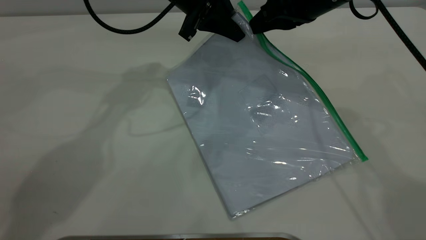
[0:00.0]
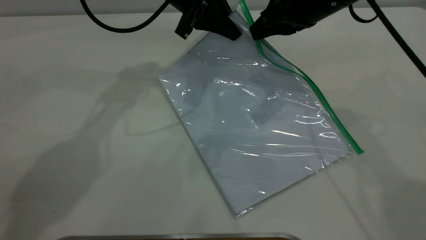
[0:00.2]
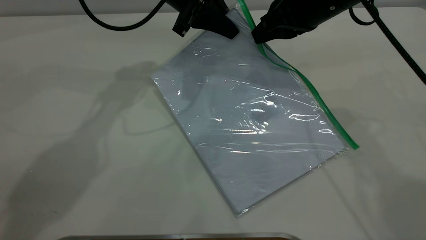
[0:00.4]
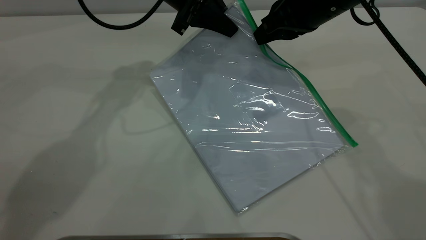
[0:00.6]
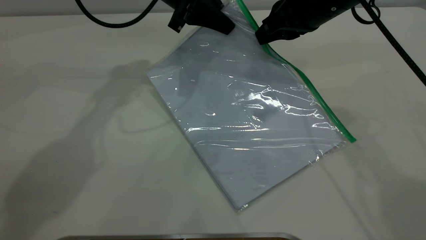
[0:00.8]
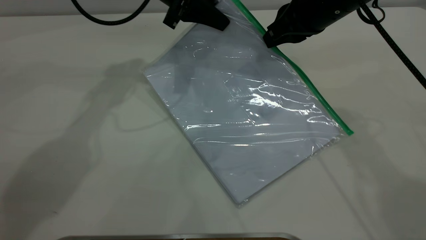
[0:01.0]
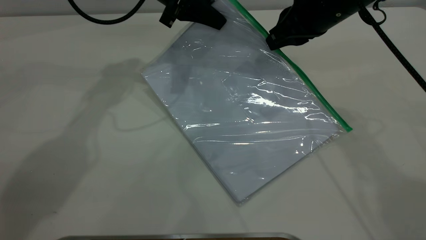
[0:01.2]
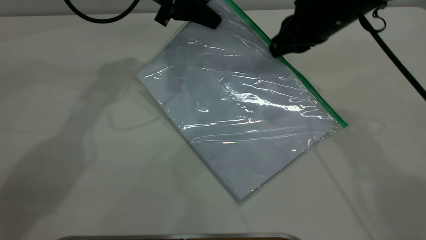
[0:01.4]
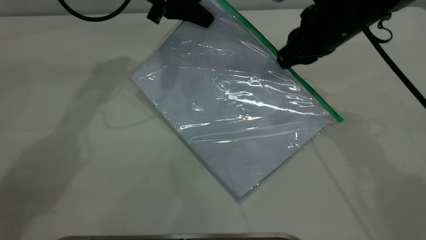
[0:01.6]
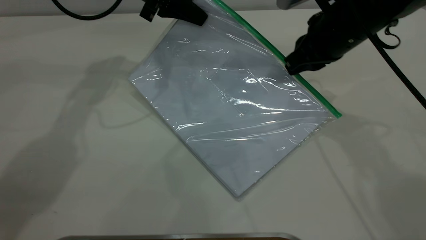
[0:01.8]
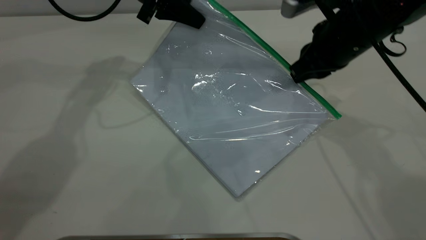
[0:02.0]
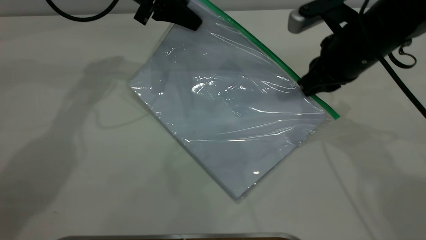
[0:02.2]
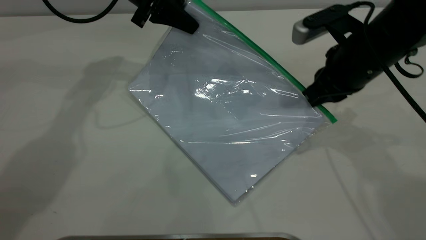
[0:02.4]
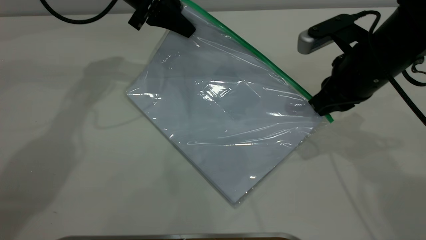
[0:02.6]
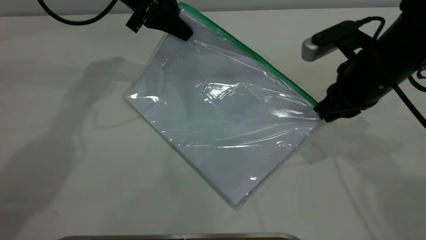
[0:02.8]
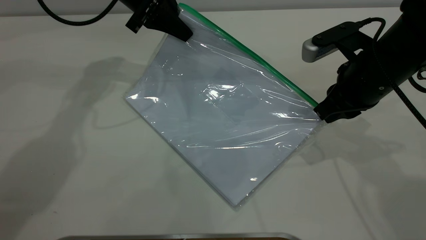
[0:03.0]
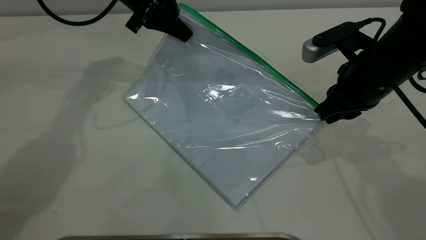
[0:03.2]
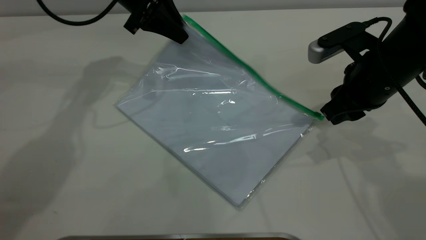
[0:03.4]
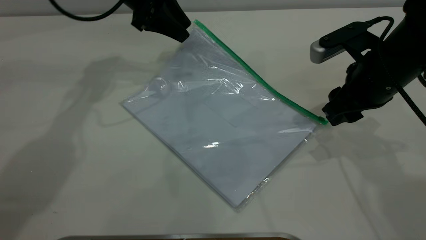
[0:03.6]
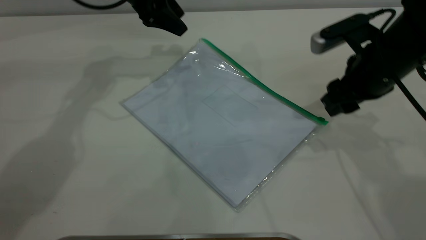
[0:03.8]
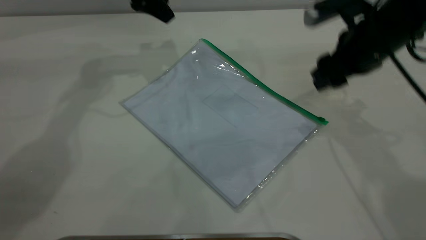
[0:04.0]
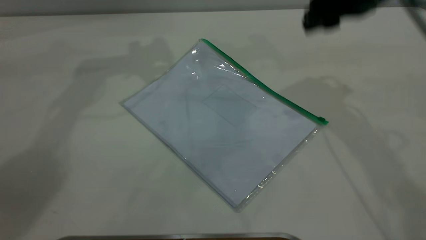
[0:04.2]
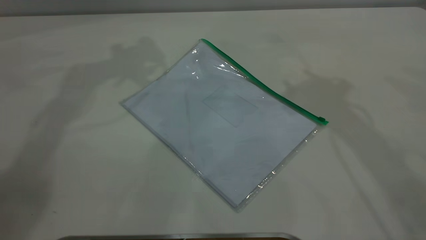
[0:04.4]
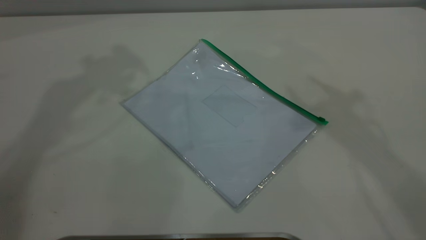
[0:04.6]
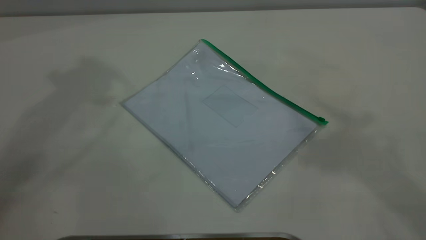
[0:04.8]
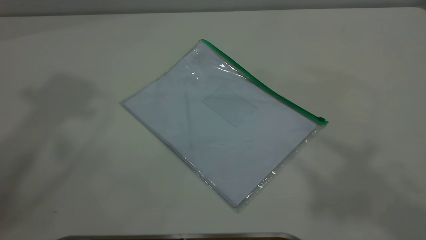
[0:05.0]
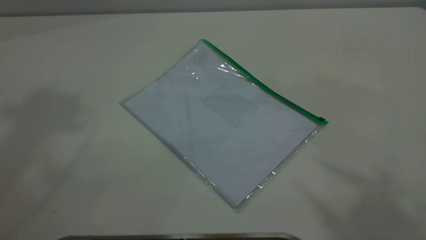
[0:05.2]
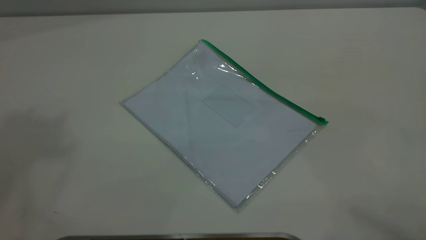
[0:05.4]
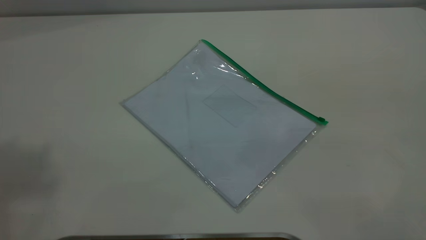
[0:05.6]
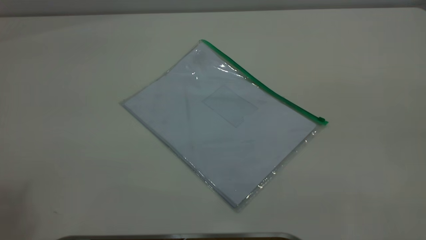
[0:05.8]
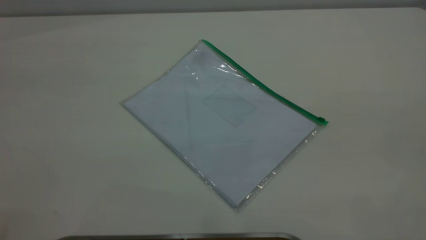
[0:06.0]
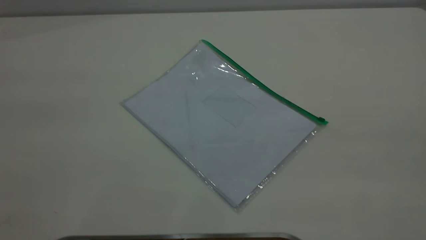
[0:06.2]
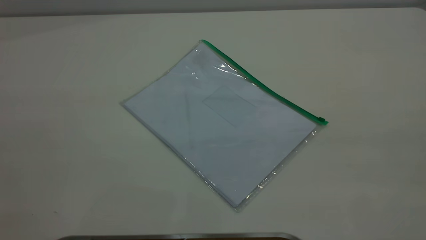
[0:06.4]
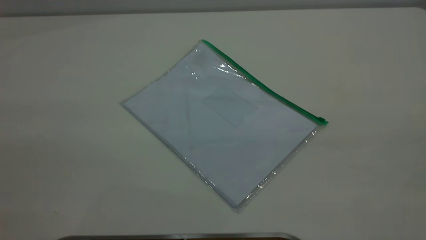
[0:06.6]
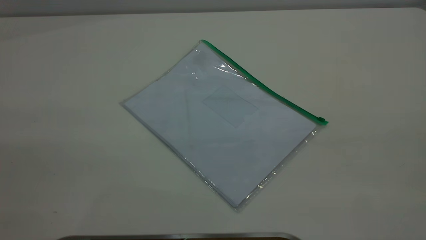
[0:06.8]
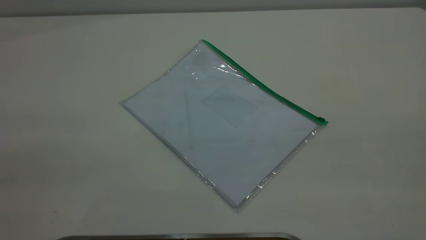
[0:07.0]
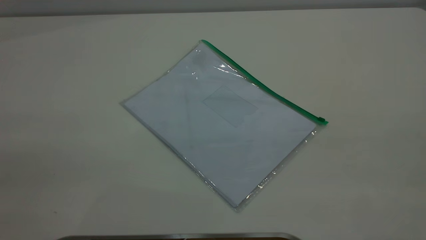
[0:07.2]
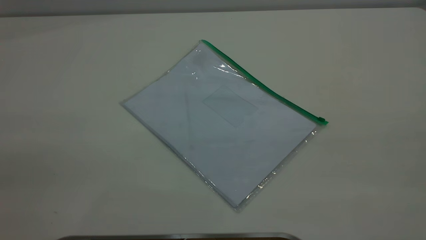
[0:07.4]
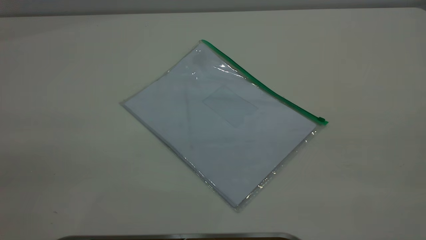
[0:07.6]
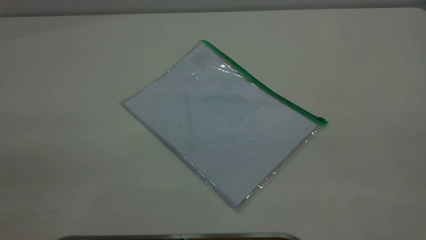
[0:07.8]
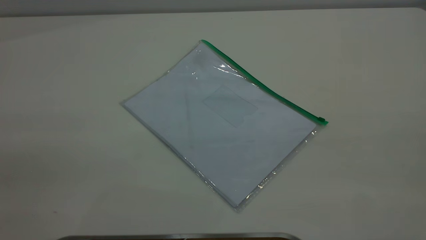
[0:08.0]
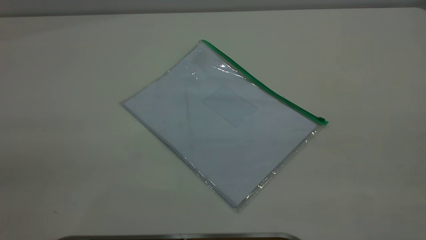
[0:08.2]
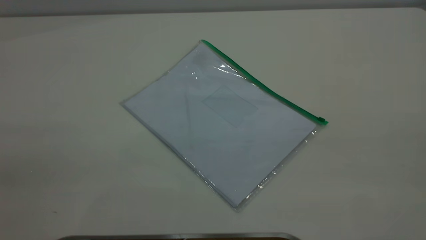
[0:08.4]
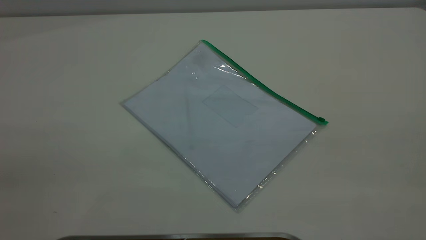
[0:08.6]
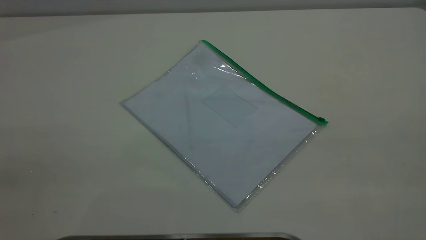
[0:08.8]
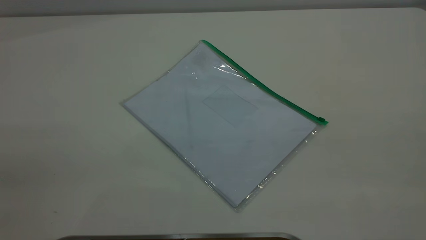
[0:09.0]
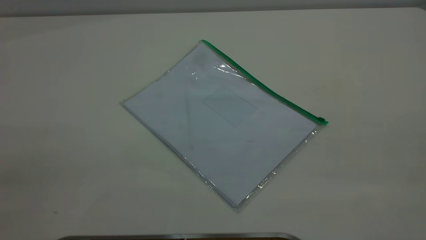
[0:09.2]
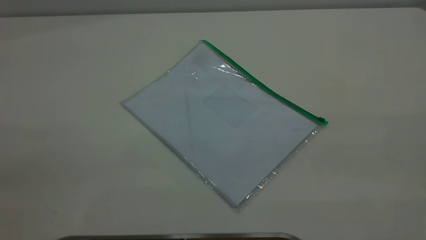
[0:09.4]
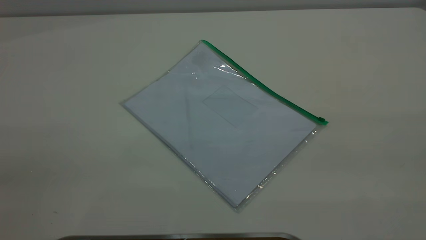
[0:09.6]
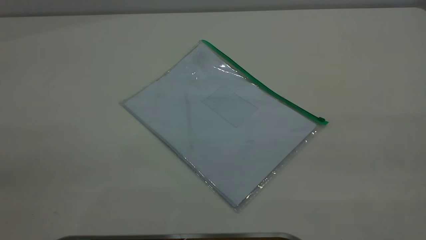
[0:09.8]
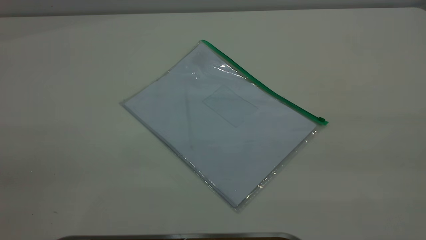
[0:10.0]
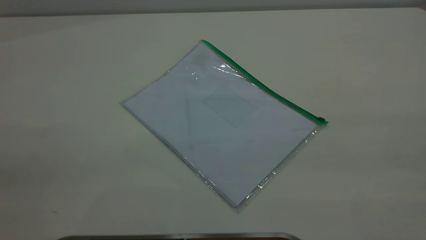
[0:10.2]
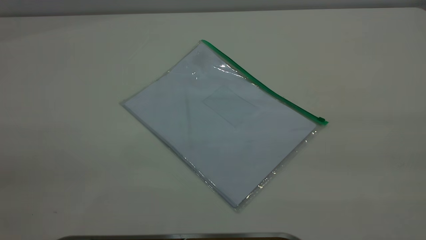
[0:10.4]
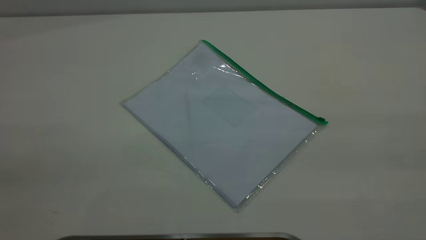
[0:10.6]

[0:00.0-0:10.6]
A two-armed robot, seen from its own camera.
Step, 0.0 to 3.2 s: Pulling up the zipper on the transparent plastic bag with the right gripper to close it.
Step, 3.4 to 3.8 s: Place the transparent plastic bag.
0.0 to 1.6 s: The left gripper shifts some 5 cm to the left.
1.6 to 3.0 s: The right gripper heads backward, covering some 5 cm.
3.0 to 4.6 s: Both grippers travel together upward, roughly 30 cm. The left gripper opens its fingers. The right gripper opens up.

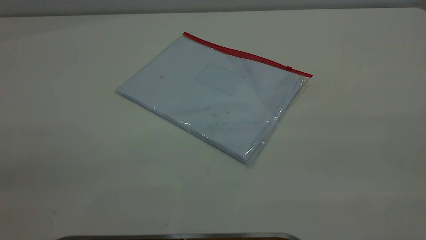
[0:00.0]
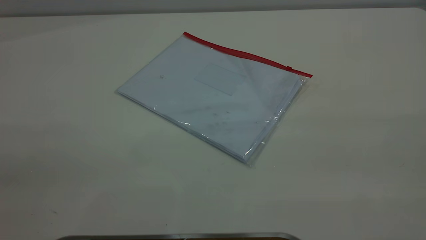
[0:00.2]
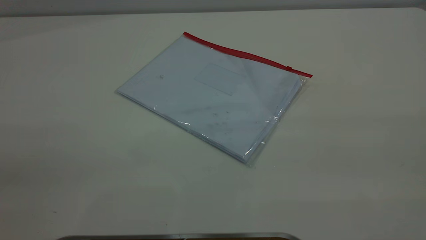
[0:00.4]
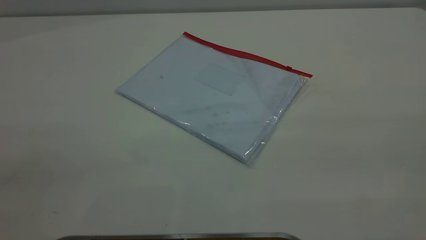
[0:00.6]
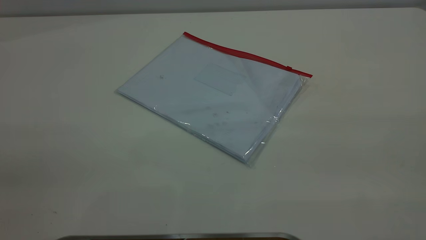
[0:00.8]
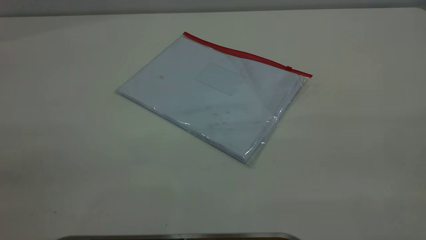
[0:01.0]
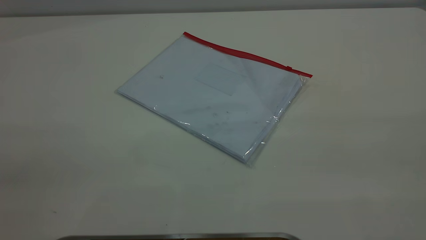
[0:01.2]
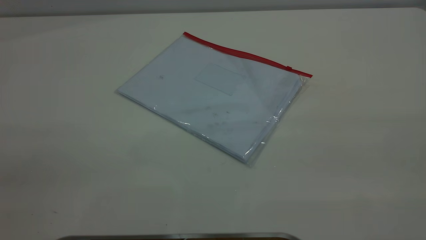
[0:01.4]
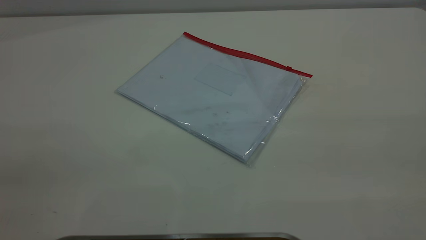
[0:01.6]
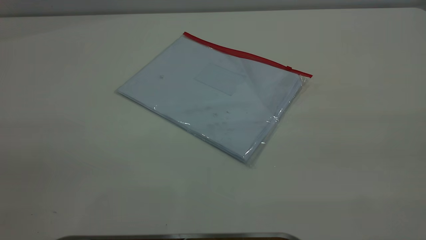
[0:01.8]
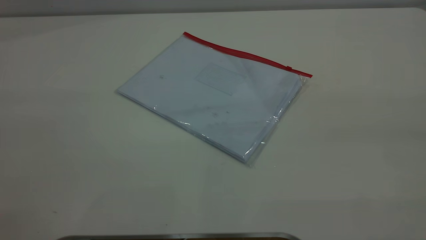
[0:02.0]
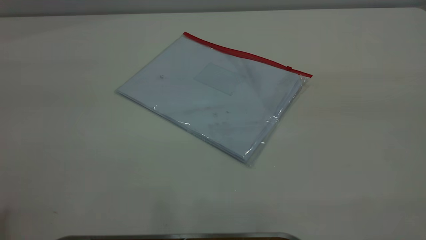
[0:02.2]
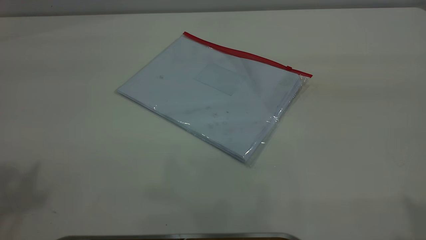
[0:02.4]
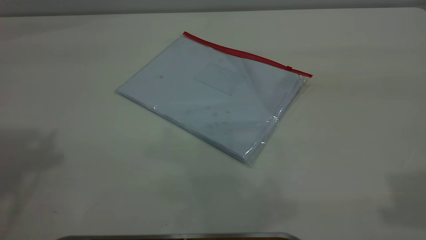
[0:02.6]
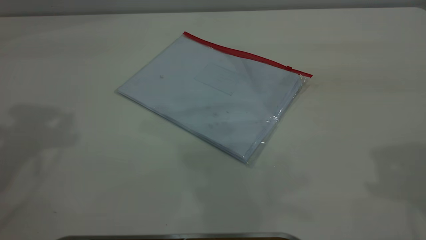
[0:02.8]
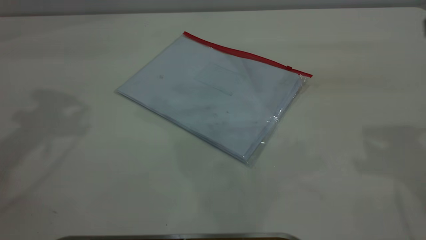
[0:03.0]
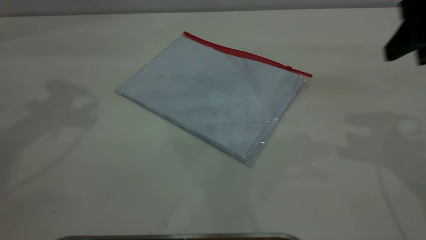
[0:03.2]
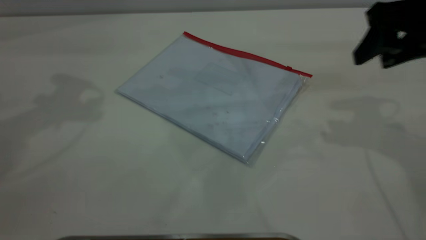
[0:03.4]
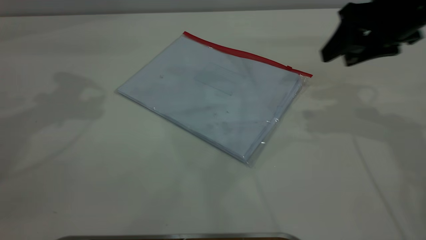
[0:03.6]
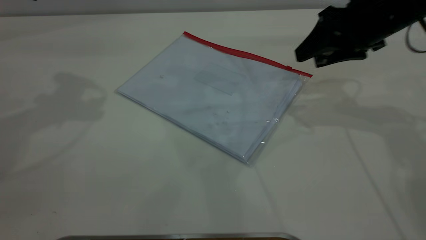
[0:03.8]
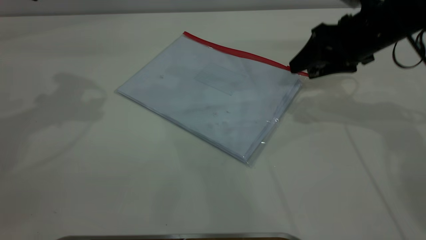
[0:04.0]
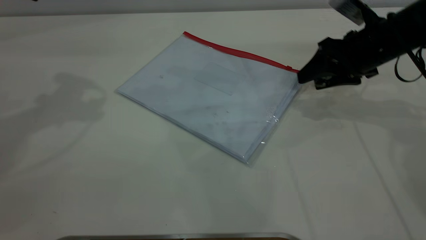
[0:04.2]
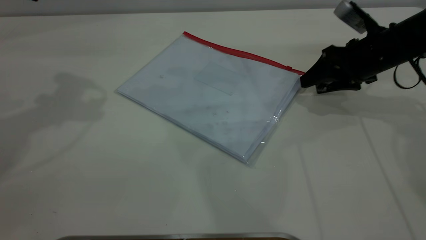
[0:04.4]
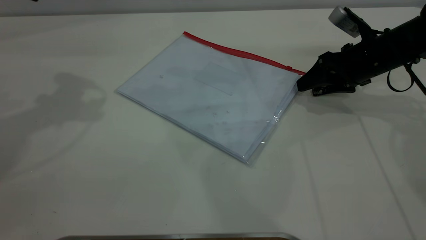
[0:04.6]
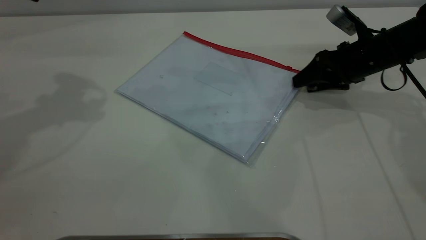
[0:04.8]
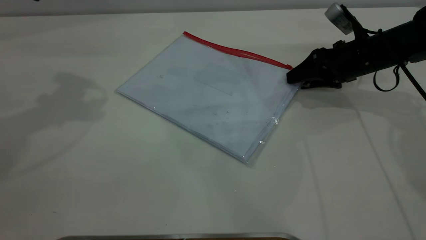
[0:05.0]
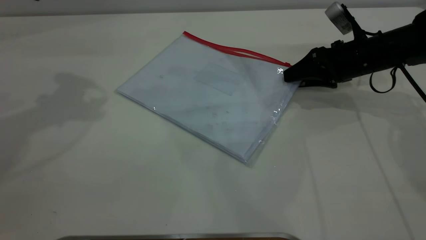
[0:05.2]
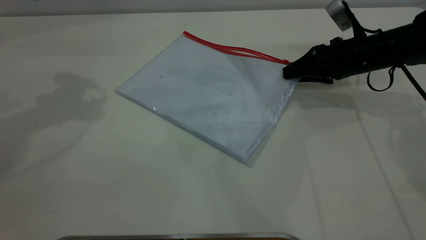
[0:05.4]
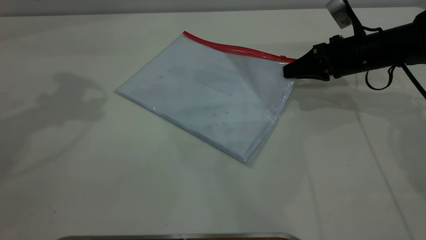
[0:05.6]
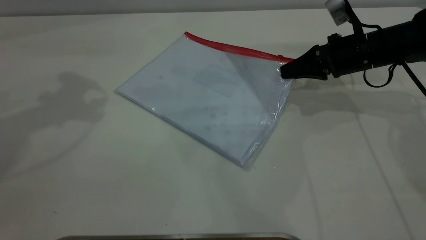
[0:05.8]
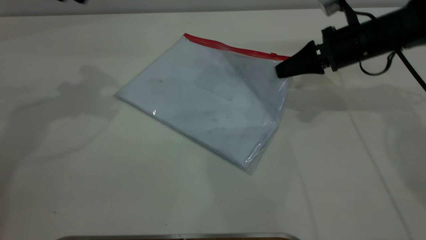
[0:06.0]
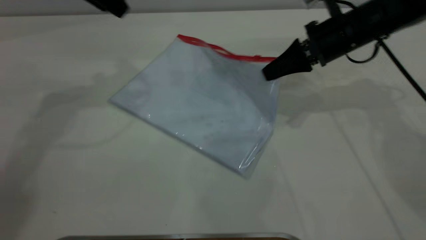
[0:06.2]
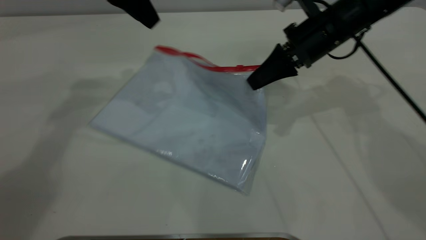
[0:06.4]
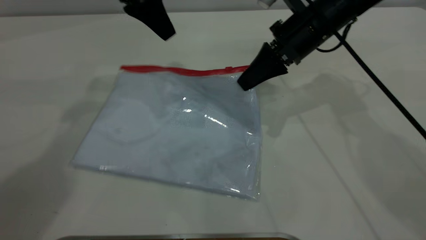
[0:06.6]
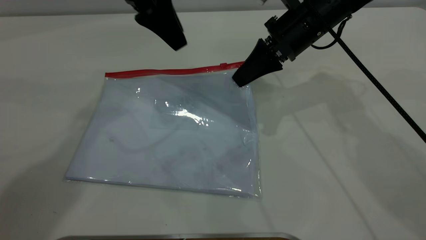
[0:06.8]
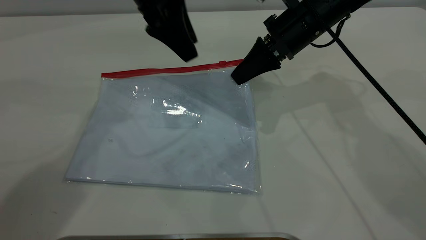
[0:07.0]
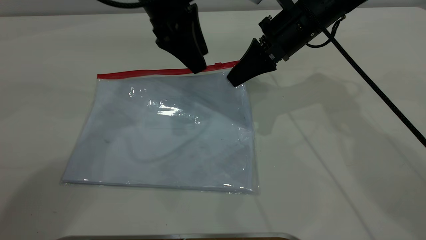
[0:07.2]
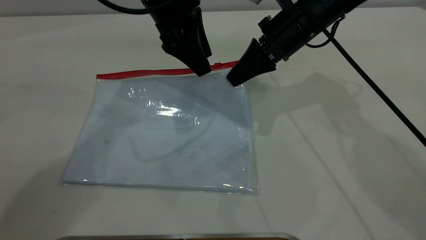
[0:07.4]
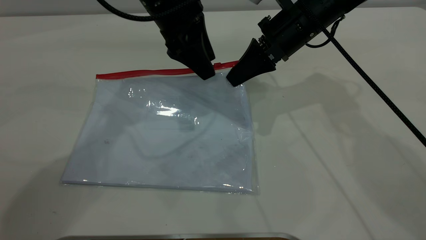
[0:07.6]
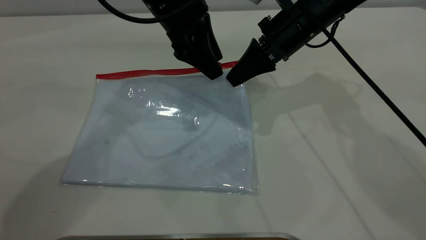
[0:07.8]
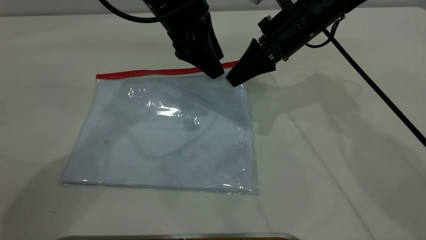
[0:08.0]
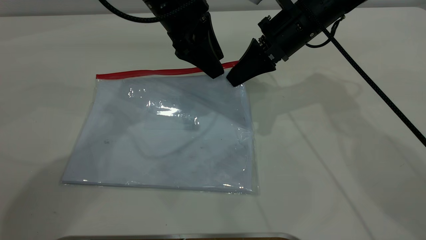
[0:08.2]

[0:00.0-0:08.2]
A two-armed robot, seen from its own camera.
Step, 0.0 to 6.2 s: Pick up the transparent plastic bag with the right gripper.
0.0 to 1.6 s: Neither gripper changes place.
1.6 to 3.2 s: The right gripper travels forward and downward by about 30 cm.
3.2 to 5.0 s: The right gripper goes roughly 20 cm downward and forward.
5.0 to 6.6 s: The right gripper moves to the left and upward, roughly 15 cm, and closes up, while the left gripper goes some 15 cm to the right and downward.
6.6 to 8.2 s: The left gripper moves to the right and downward, some 10 cm.
